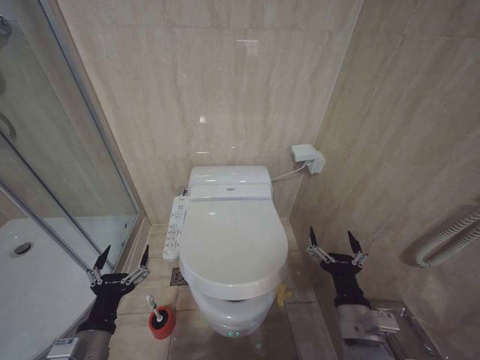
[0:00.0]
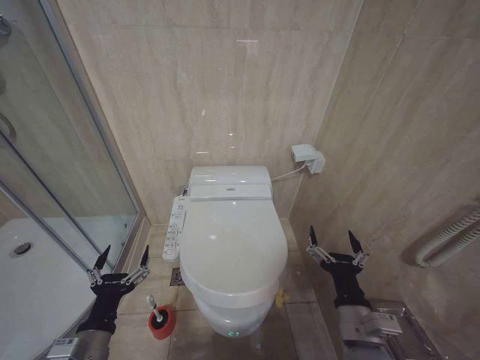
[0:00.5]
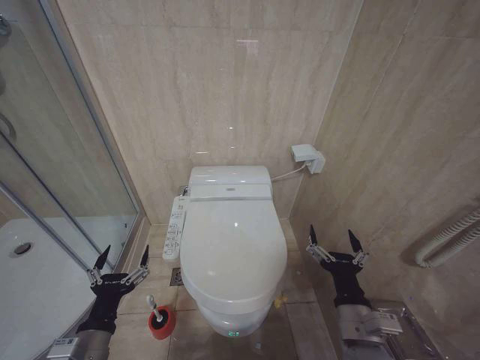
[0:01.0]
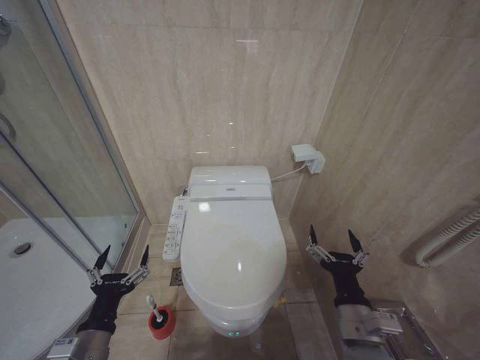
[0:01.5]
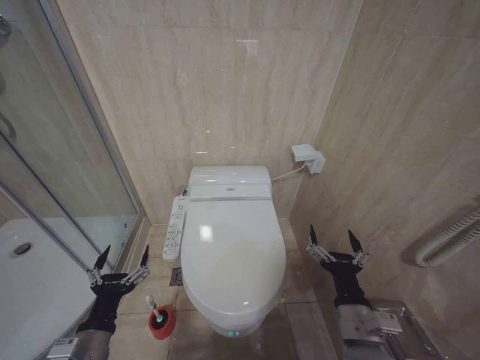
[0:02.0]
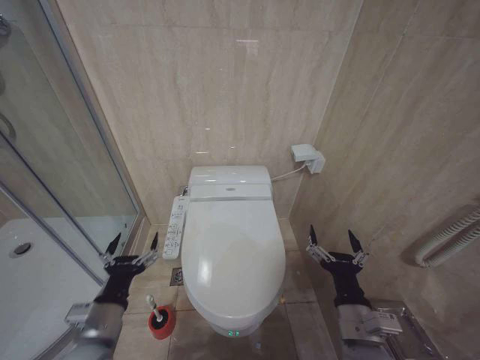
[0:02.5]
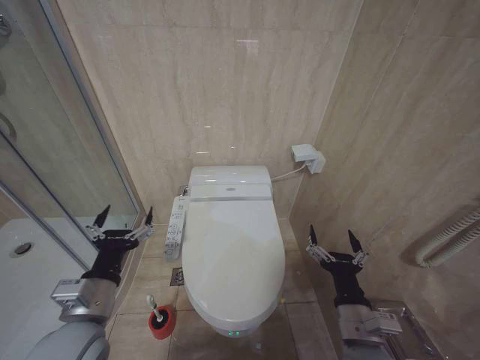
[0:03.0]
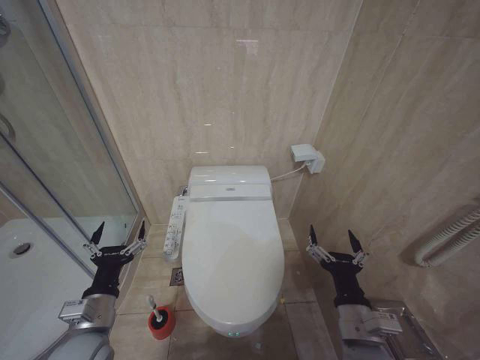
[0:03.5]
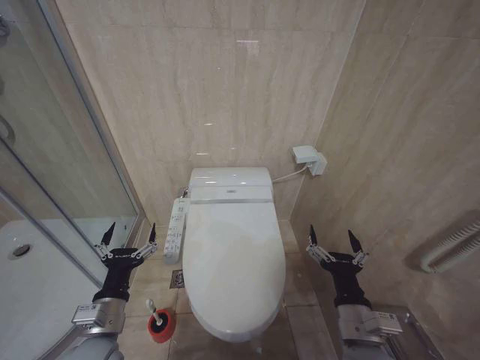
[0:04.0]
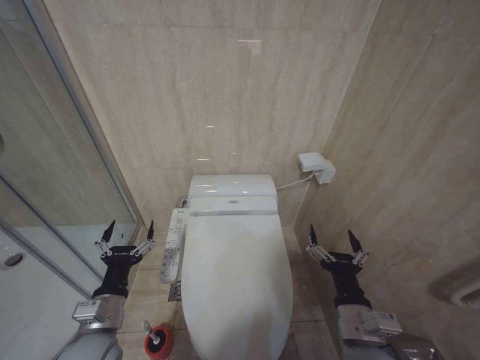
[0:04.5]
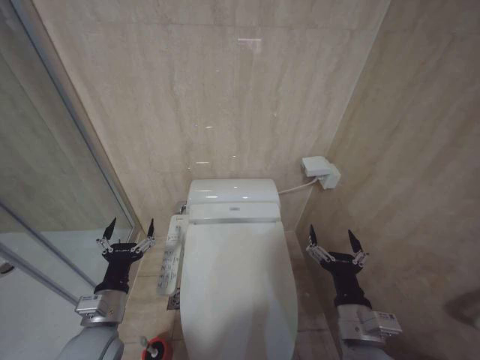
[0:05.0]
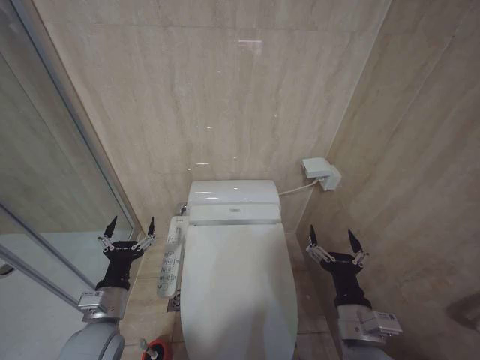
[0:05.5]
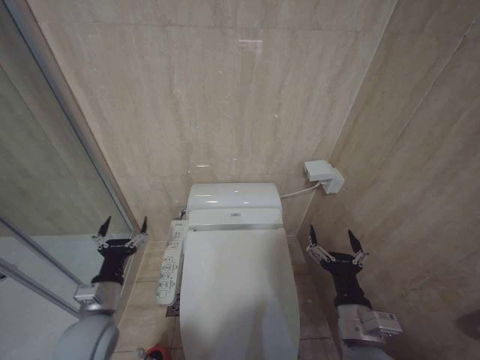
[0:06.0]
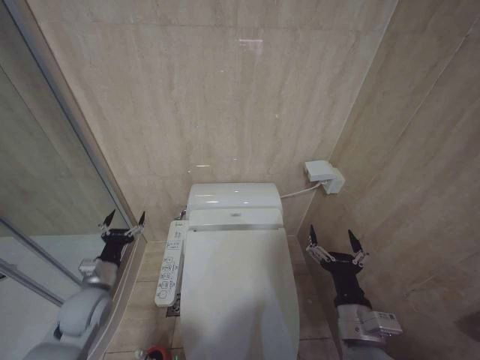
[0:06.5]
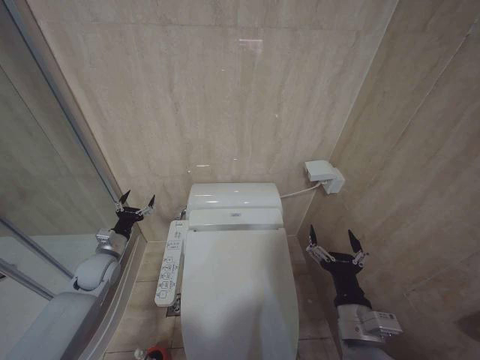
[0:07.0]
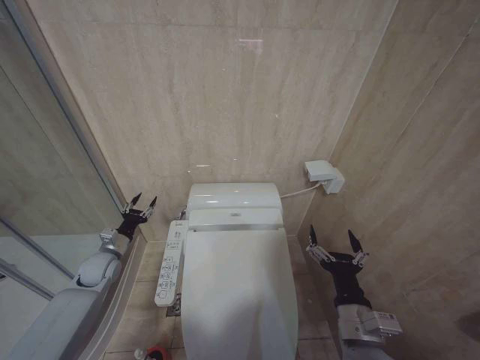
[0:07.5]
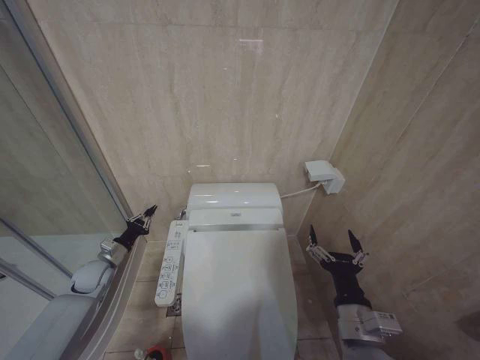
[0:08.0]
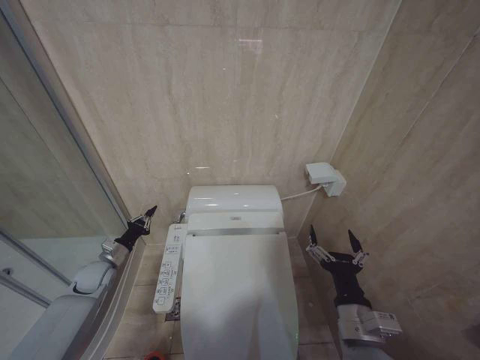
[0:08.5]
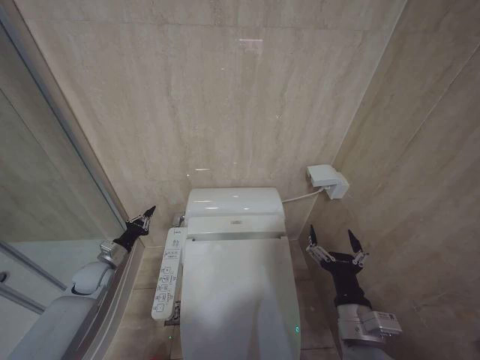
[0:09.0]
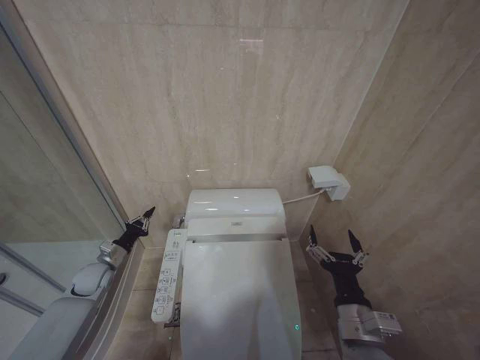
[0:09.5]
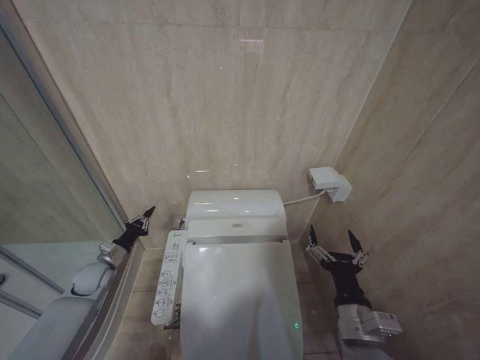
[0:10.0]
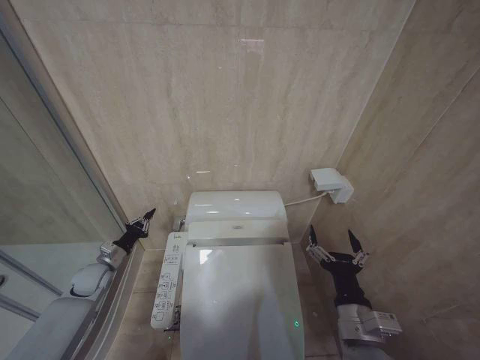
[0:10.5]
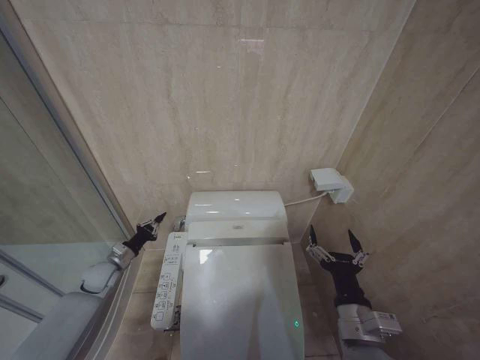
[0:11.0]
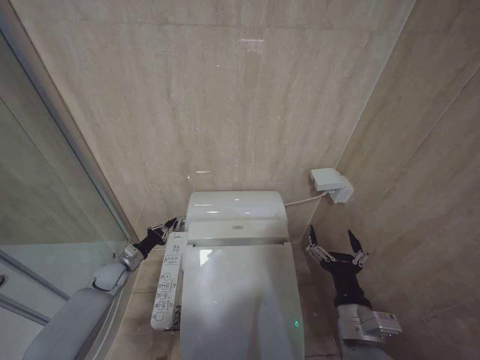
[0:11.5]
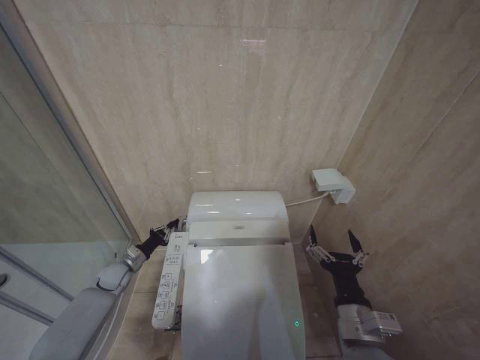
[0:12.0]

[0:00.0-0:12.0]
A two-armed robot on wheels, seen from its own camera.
Task of the whole recording: Open the toilet lid, clean the toilet bowl with a toilet brush, close the toilet lid, and flush.
0:00.0 to 0:02.0: Both grippers stay about where they are.
0:02.0 to 0:04.0: The left gripper reaches roughly 10 cm upward, then returns.
0:04.0 to 0:06.0: There are only small adjustments of the grippers.
0:06.0 to 0:08.0: The left gripper is displaced forward, to the left and downward by approximately 25 cm, and closes its fingers.
0:08.0 to 0:10.0: Both grippers stay about where they are.
0:10.0 to 0:12.0: The left gripper shifts some 5 cm downward.

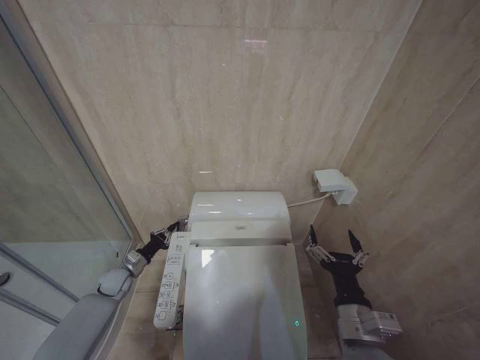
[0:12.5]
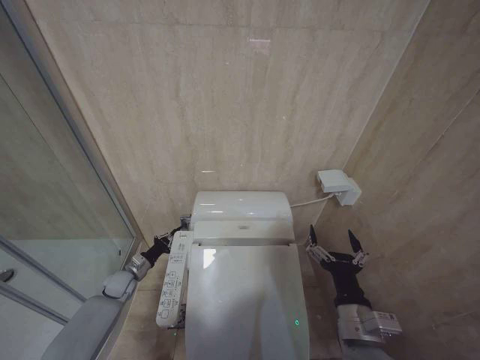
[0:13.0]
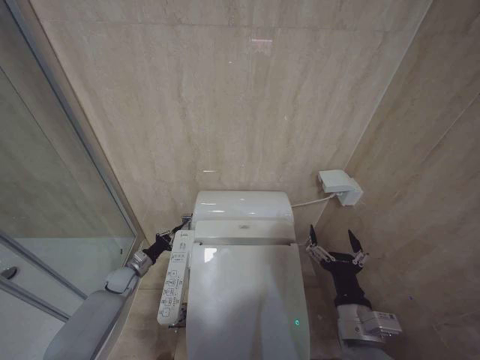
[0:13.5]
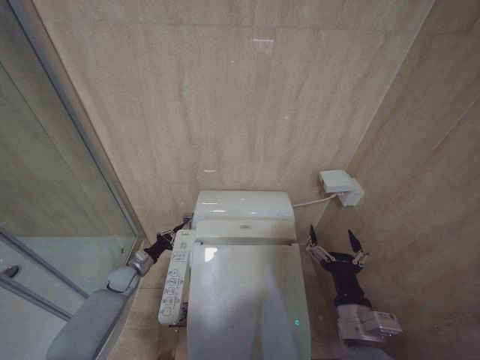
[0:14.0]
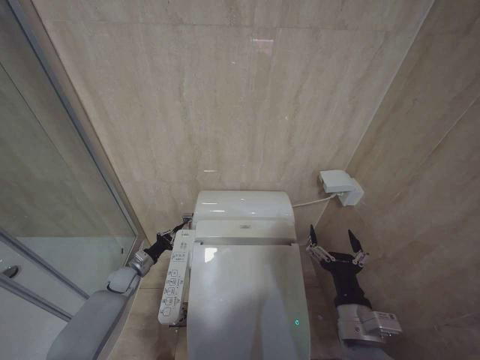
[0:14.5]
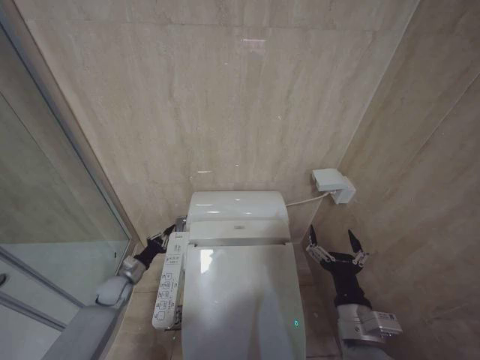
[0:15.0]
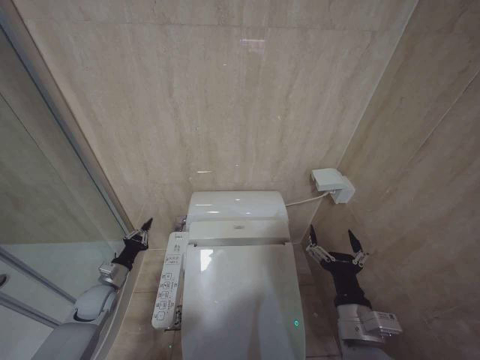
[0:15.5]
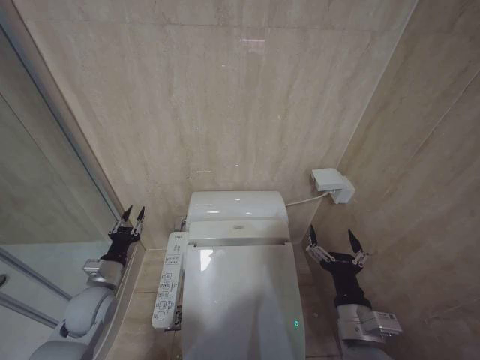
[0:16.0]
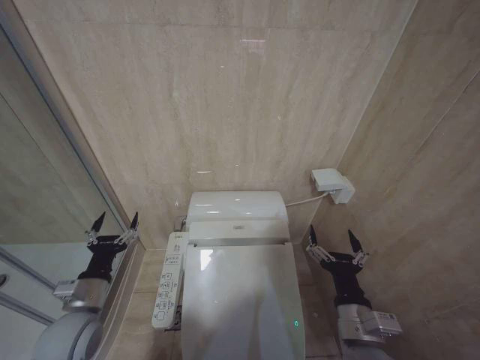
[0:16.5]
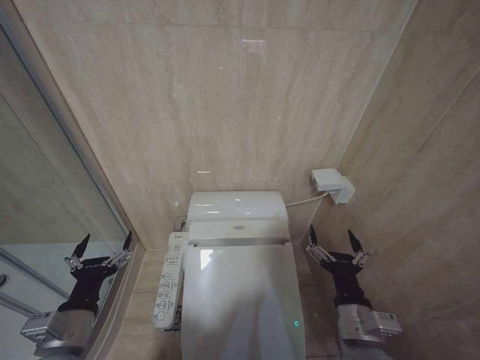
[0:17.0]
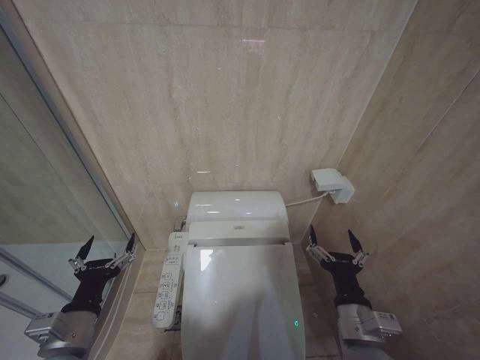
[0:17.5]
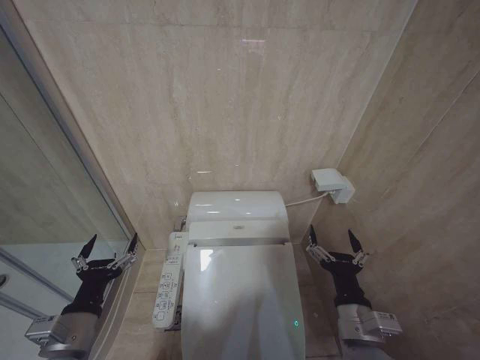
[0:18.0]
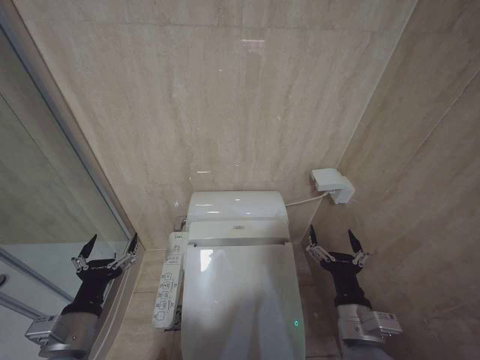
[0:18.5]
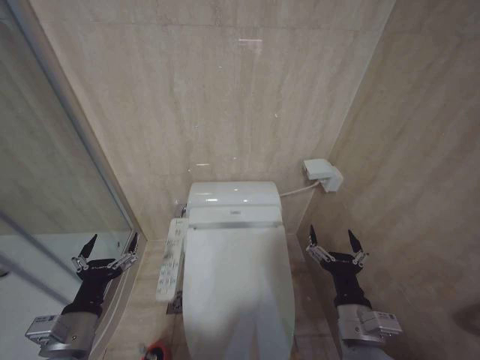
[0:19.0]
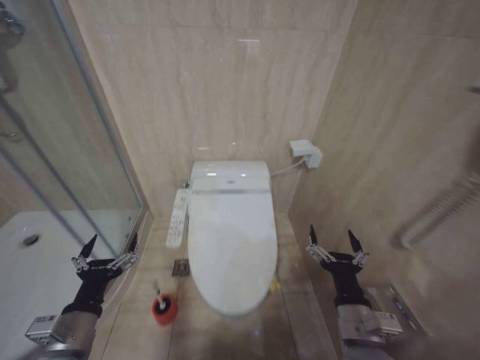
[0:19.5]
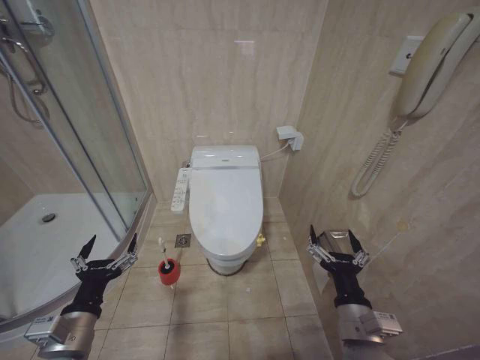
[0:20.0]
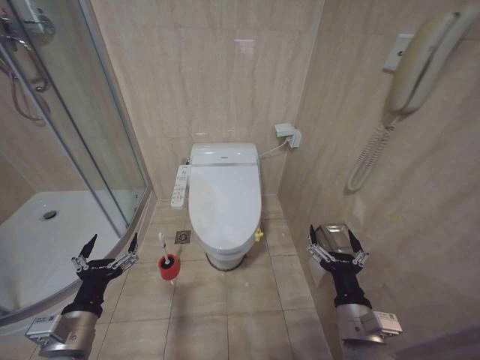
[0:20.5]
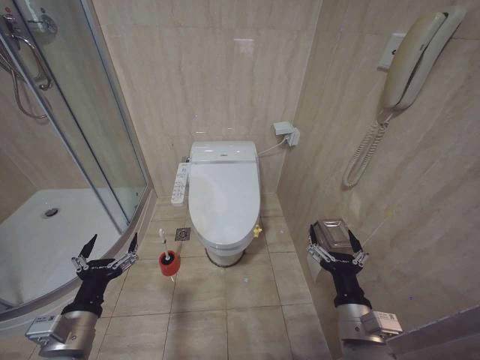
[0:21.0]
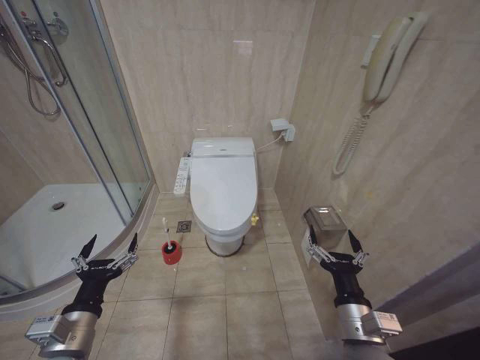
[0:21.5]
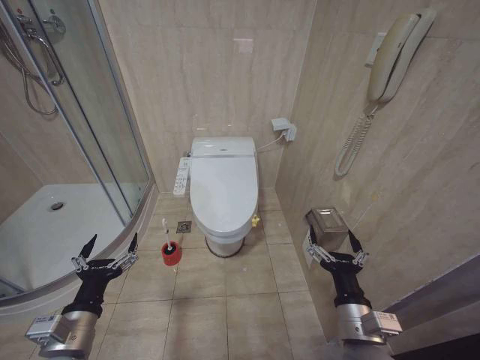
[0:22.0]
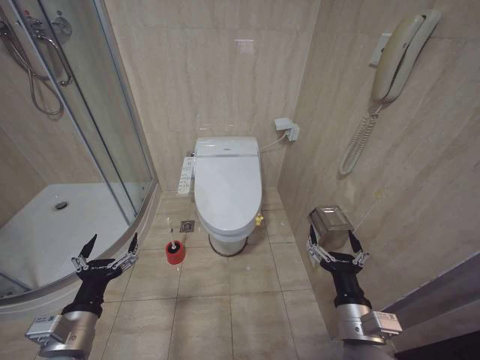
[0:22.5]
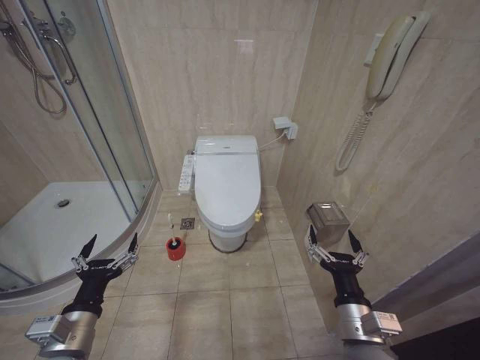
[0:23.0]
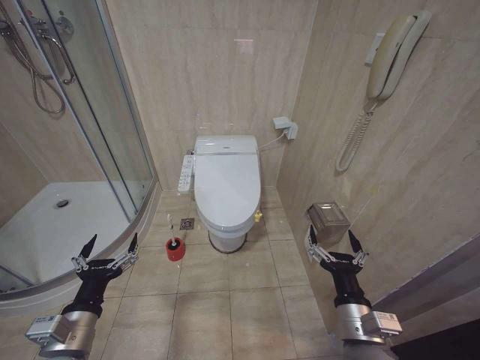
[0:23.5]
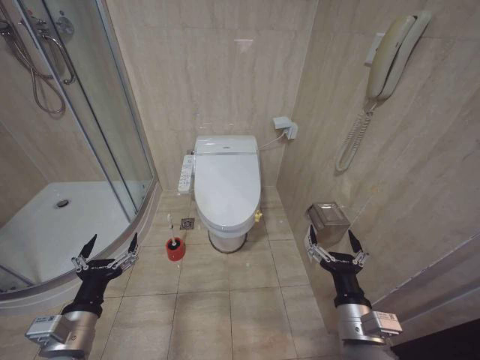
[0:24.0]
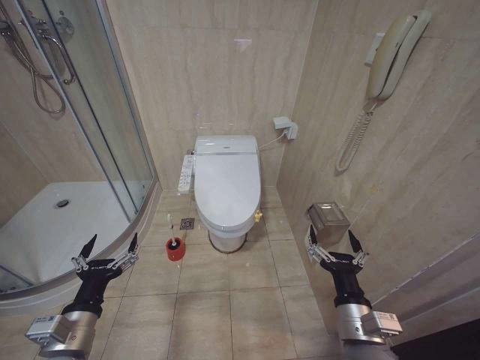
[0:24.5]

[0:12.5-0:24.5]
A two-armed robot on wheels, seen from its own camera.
Task of the whole recording: Open the toilet lid, clean the toilet bowl with a toilet brush, close the toilet lid, and flush.
0:12.5 to 0:14.5: The grippers make only small movements.
0:14.5 to 0:16.5: The left gripper goes about 25 cm backward and upward, and opens up.
0:16.5 to 0:18.5: The left gripper moves backward, some 10 cm, and opens its fingers.
0:20.5 to 0:24.5: The two grippers keep their place.

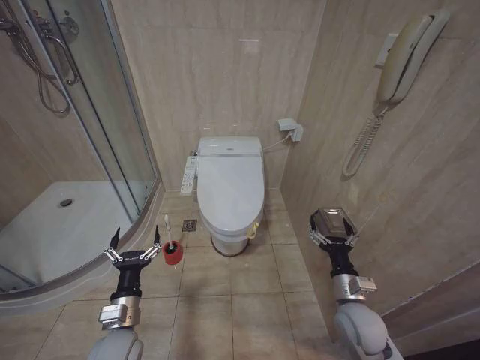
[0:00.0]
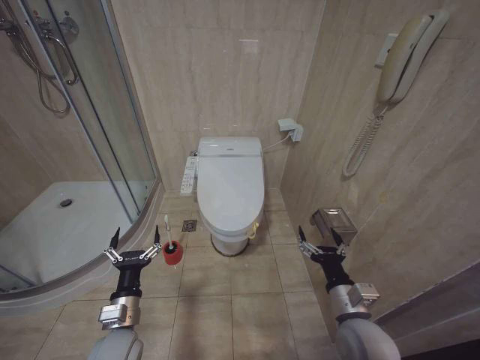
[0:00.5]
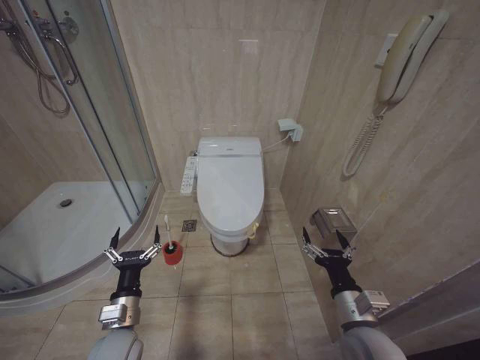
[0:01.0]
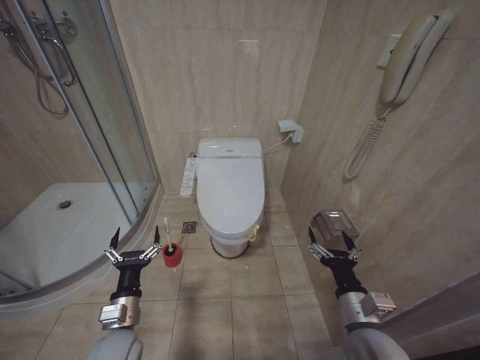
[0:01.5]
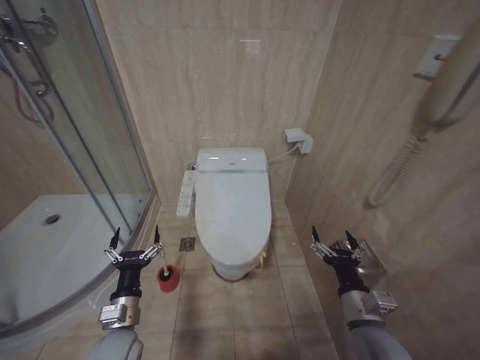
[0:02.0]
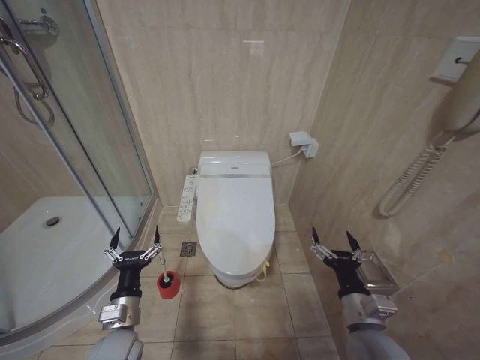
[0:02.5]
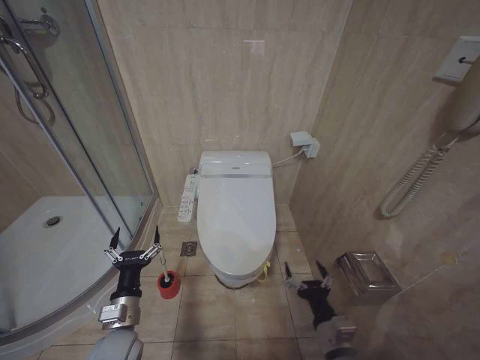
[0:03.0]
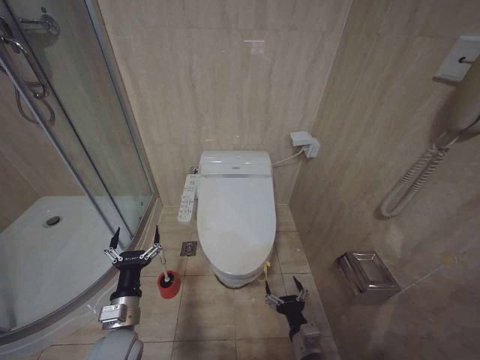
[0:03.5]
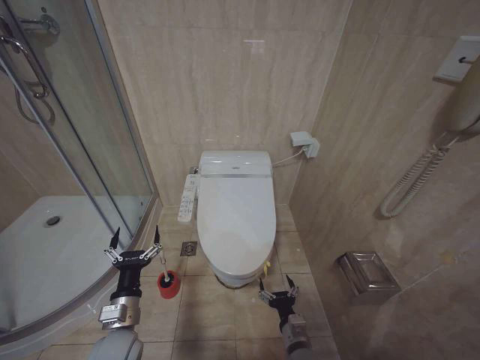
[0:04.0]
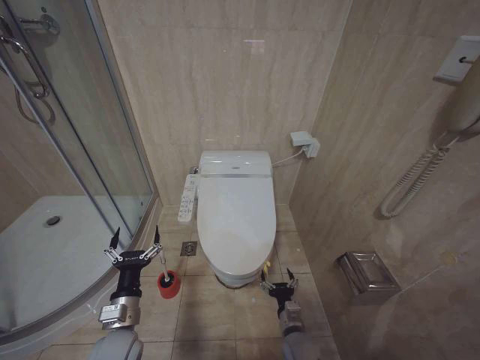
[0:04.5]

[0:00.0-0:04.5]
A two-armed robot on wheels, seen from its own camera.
Task of the whole recording: Open the toilet lid, clean the toilet bowl with a toilet brush, close the toilet lid, and flush.
0:02.0 to 0:04.5: The right gripper heads downward and to the left, covering about 20 cm.
